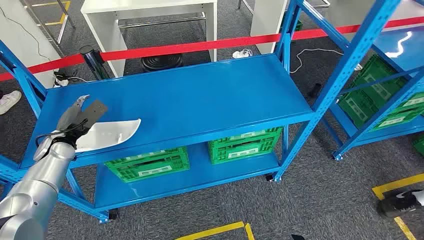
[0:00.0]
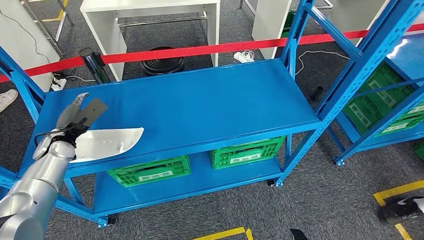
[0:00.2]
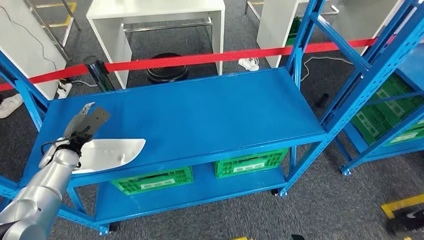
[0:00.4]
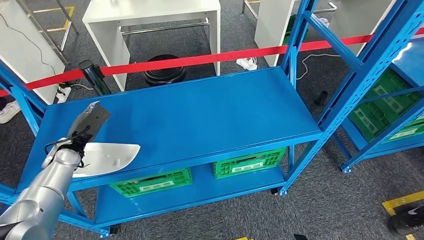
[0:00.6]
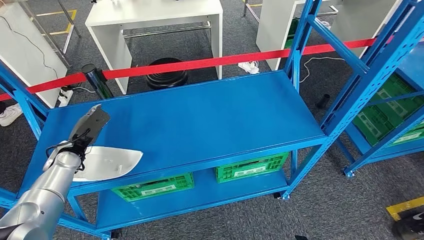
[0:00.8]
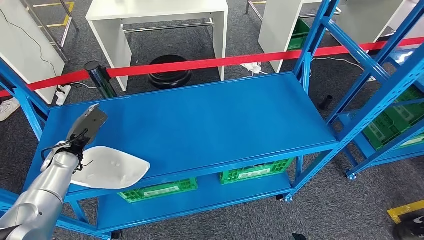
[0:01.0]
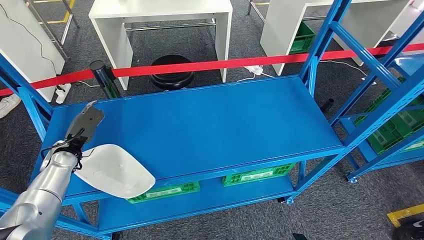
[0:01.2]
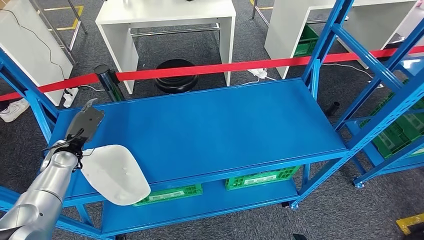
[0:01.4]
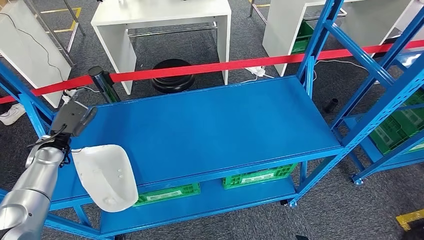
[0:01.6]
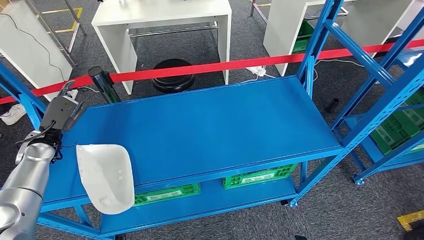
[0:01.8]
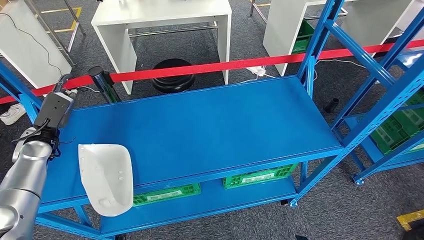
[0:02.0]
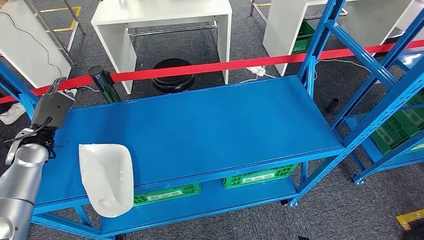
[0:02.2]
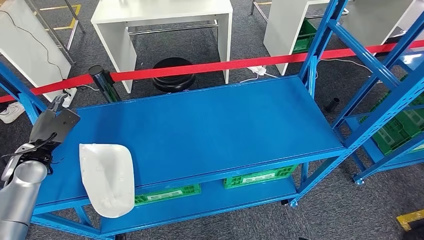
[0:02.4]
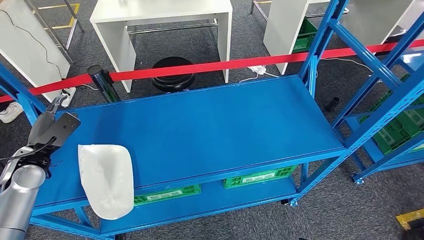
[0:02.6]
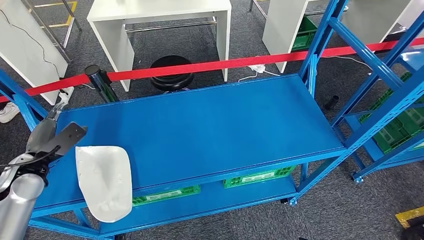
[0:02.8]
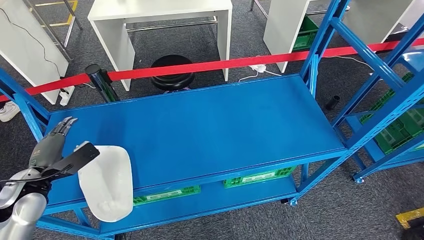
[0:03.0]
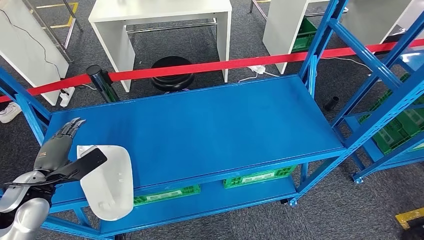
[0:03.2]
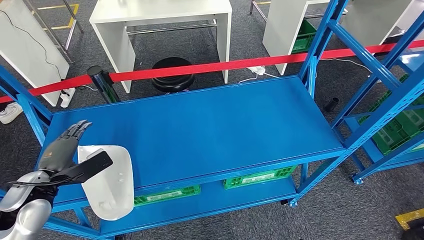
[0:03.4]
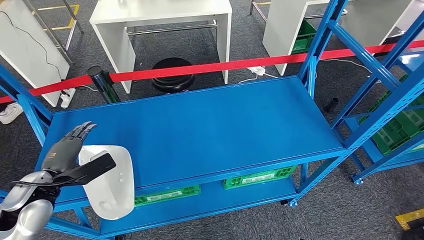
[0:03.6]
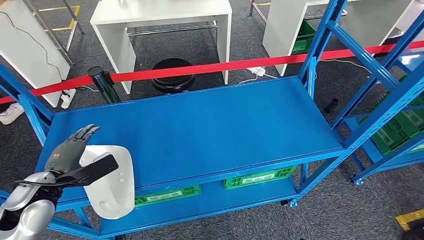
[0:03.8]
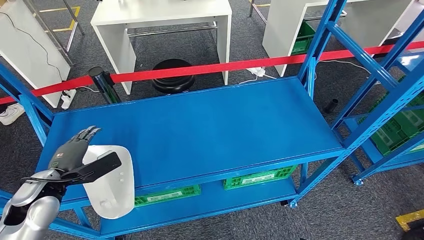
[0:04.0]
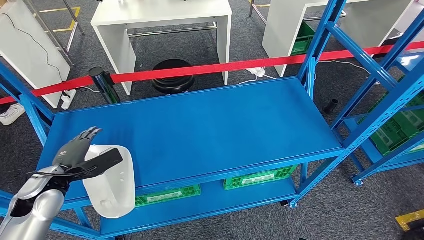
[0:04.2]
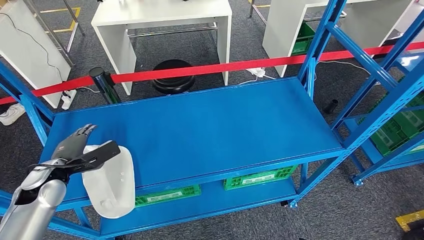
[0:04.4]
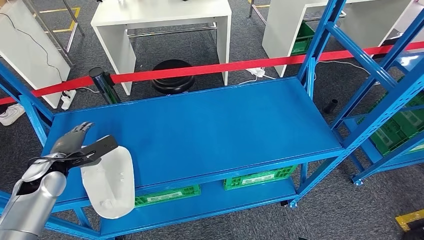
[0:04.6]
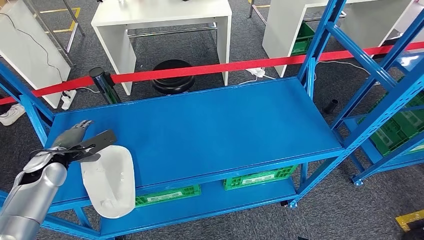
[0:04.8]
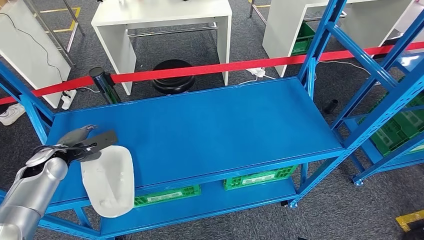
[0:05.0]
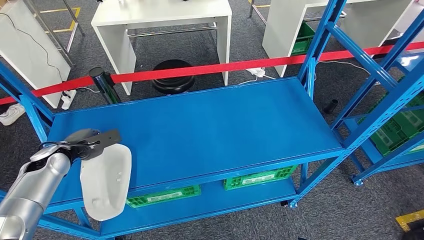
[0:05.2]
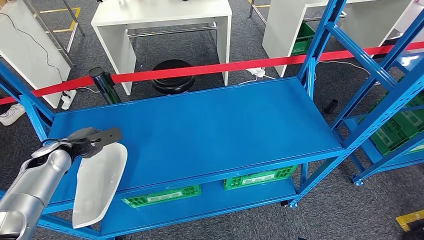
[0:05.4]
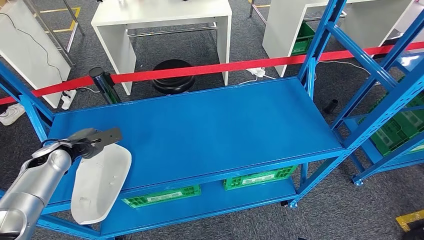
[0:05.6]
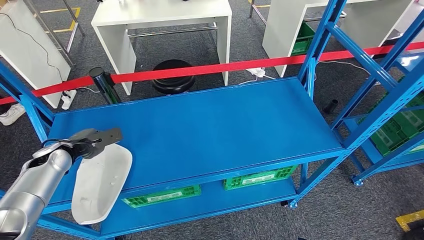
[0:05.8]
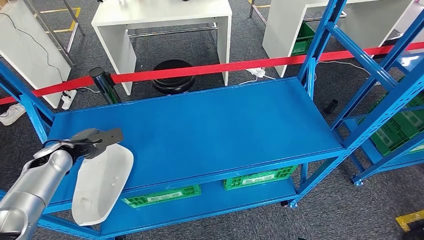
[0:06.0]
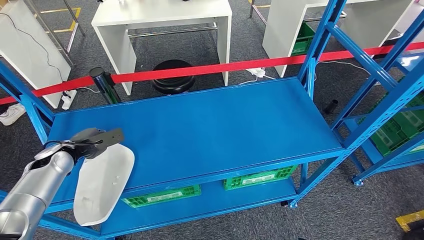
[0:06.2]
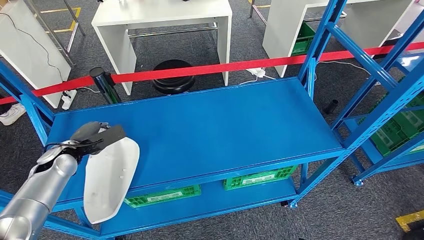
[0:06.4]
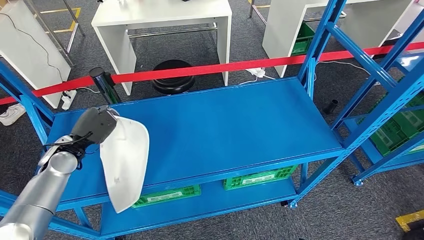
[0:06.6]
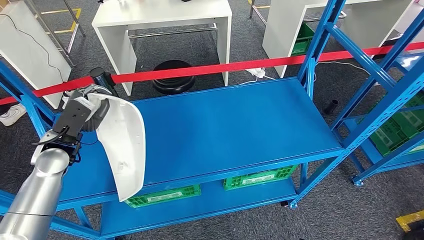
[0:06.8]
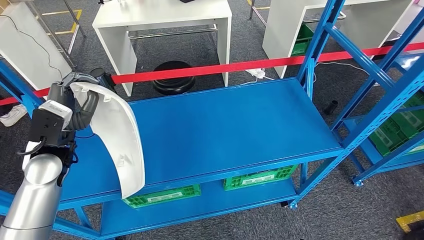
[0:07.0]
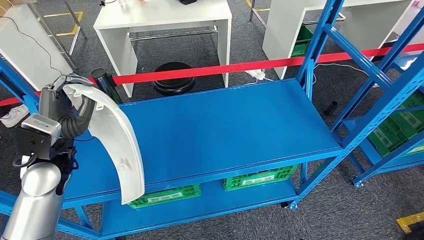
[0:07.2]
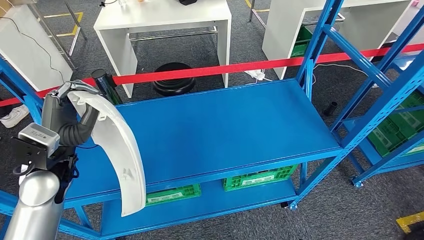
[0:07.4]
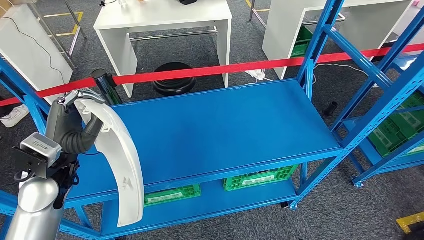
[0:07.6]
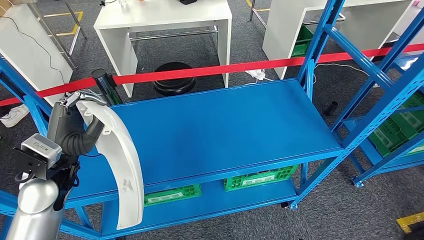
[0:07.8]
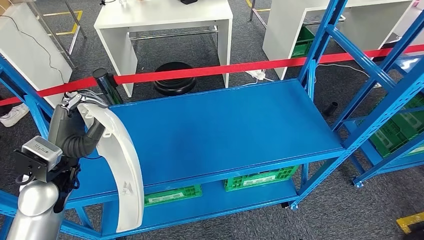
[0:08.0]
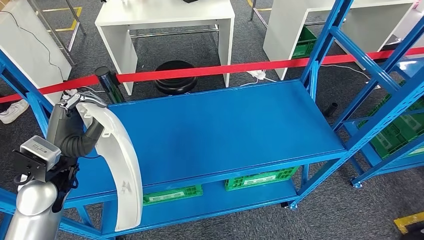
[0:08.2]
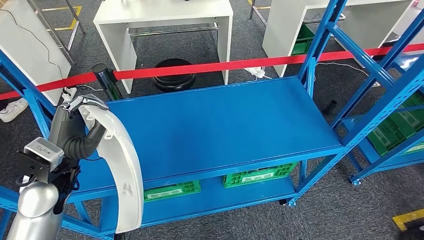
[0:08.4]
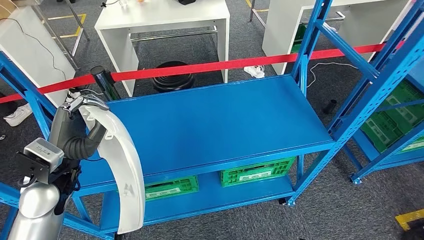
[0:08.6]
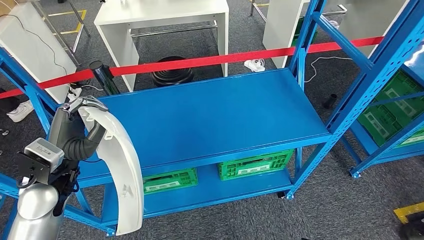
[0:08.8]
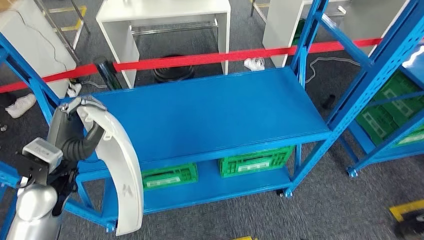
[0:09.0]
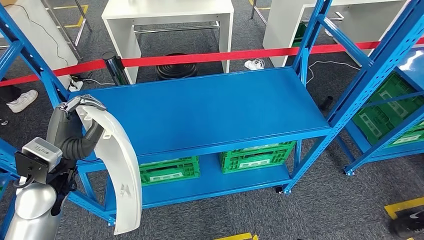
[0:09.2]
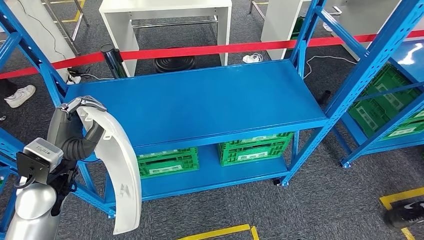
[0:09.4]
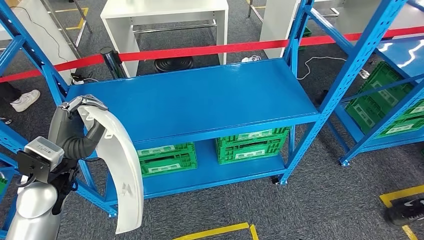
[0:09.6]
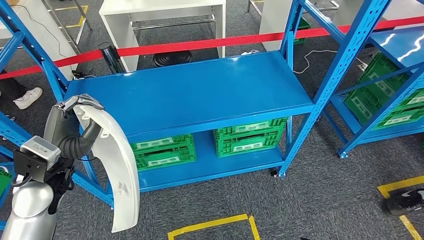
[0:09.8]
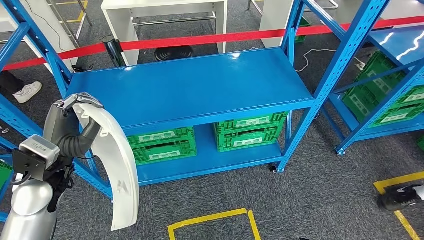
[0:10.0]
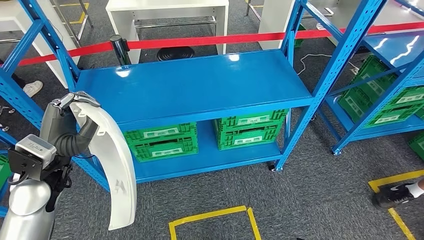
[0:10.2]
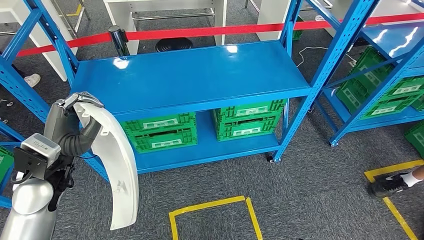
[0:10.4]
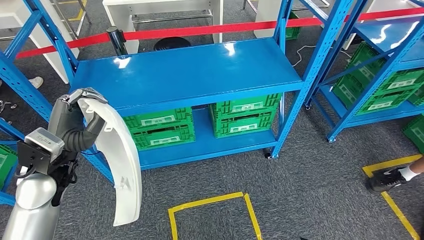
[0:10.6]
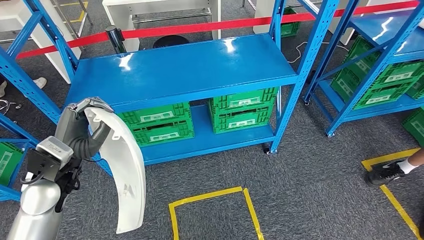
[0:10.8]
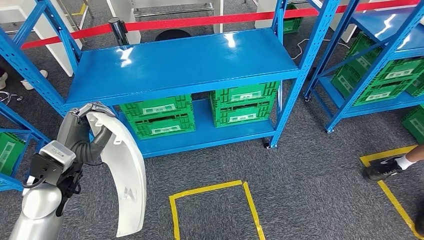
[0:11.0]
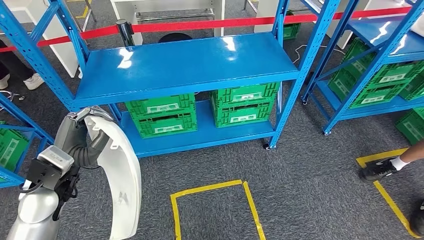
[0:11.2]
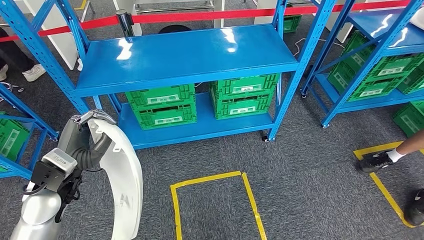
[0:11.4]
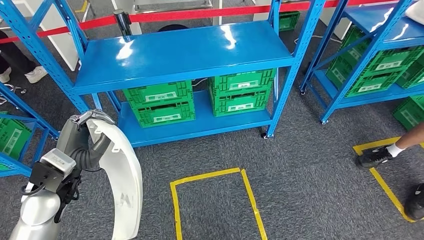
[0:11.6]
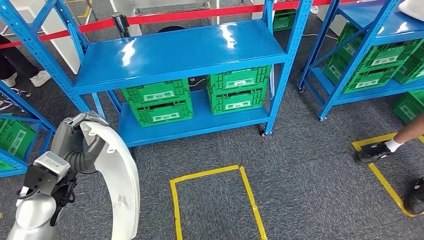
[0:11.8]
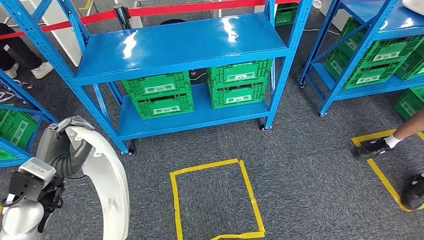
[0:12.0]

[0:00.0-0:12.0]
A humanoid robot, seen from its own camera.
Step, 0:00.0 to 0:07.6: Pick up the small component from the shelf.
0:04.4 to 0:06.0: The left hand goes some 5 cm forward.

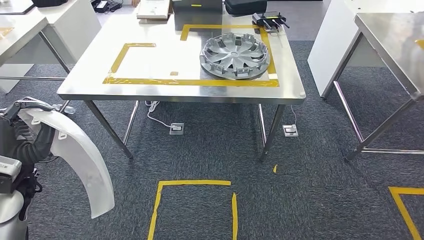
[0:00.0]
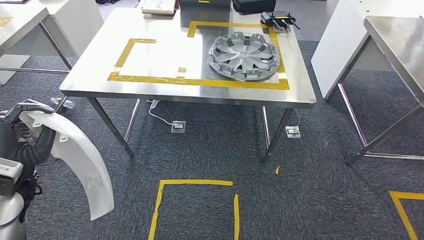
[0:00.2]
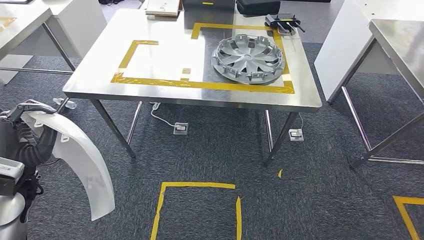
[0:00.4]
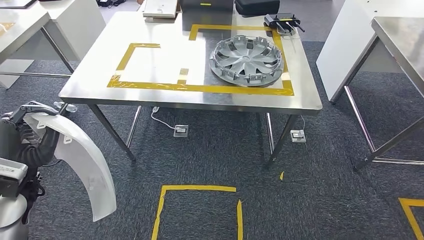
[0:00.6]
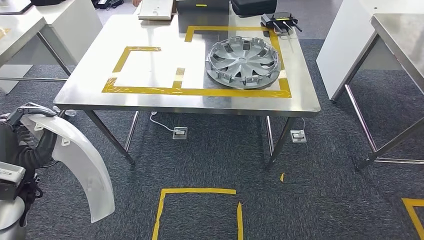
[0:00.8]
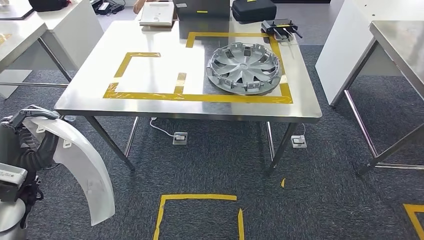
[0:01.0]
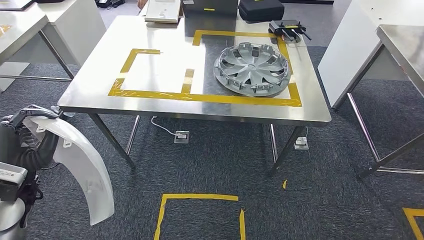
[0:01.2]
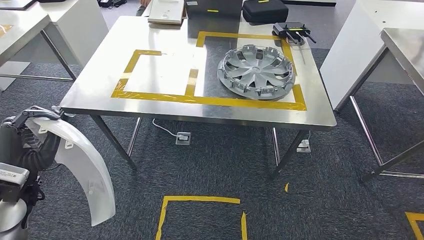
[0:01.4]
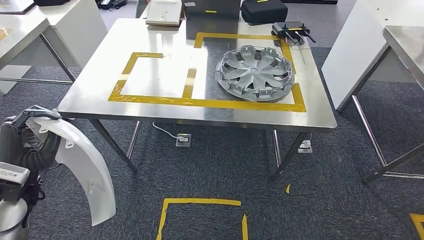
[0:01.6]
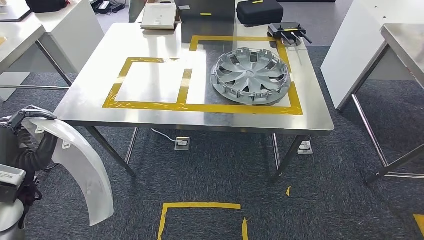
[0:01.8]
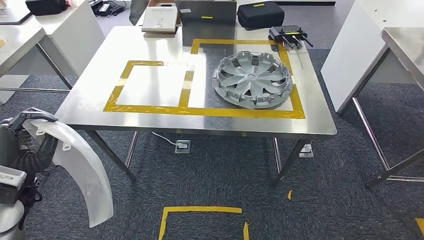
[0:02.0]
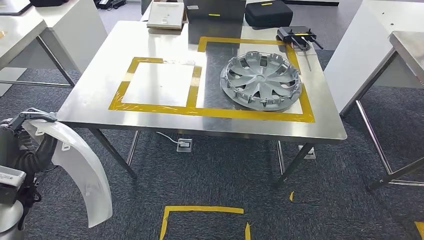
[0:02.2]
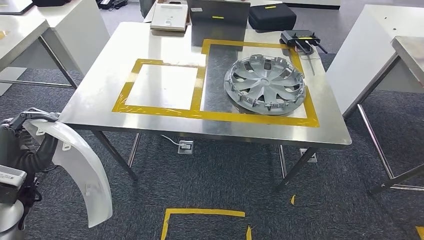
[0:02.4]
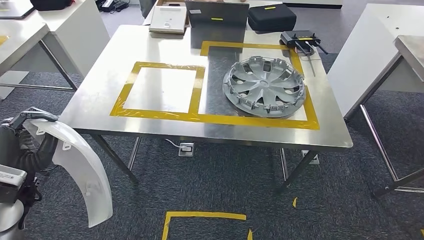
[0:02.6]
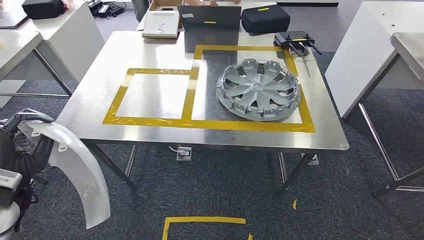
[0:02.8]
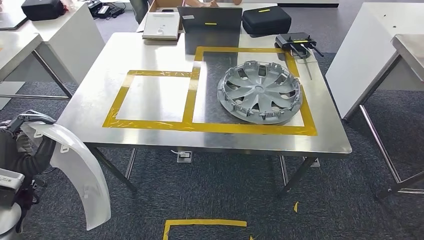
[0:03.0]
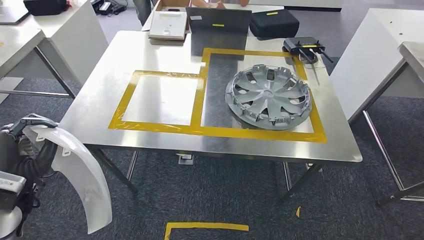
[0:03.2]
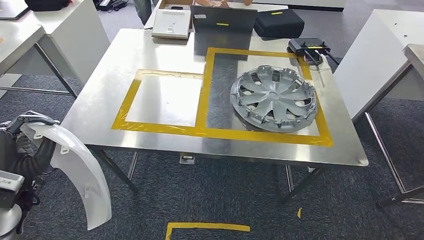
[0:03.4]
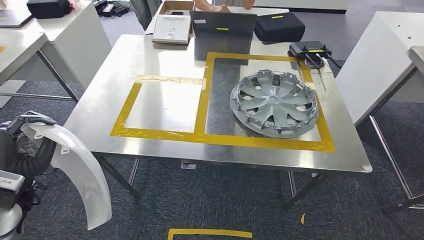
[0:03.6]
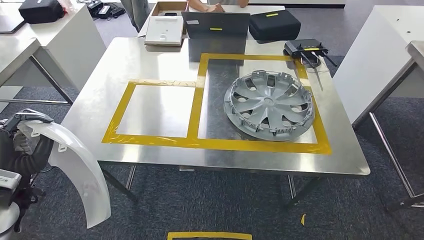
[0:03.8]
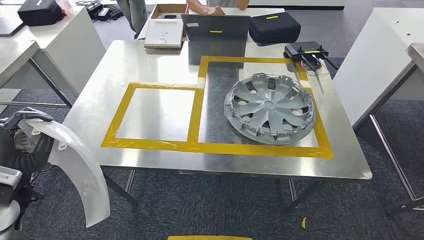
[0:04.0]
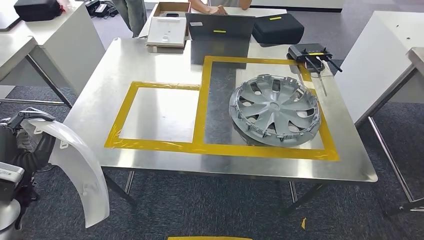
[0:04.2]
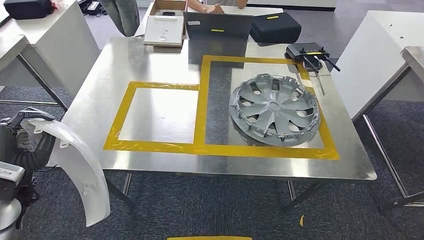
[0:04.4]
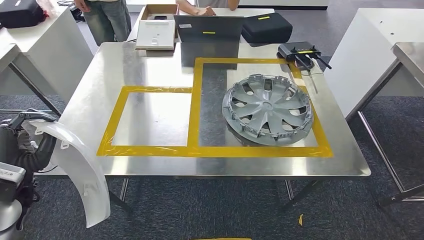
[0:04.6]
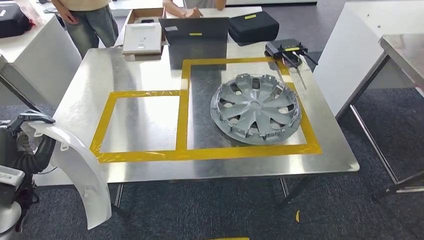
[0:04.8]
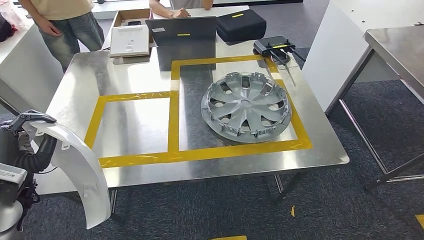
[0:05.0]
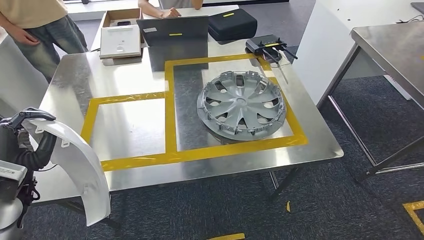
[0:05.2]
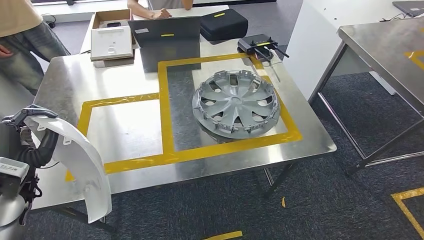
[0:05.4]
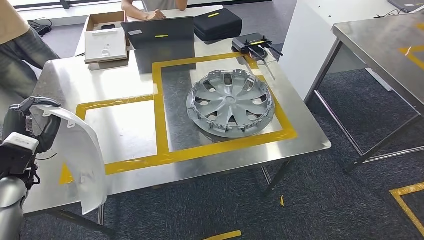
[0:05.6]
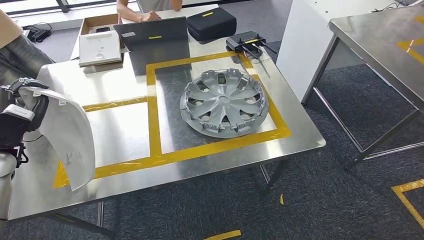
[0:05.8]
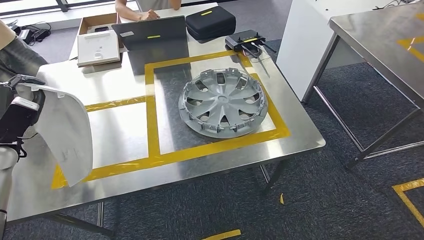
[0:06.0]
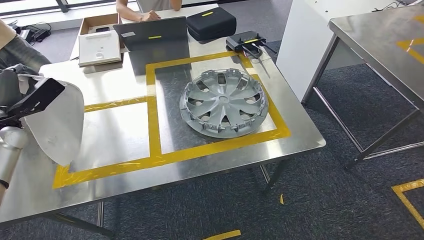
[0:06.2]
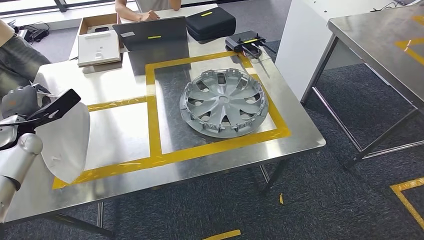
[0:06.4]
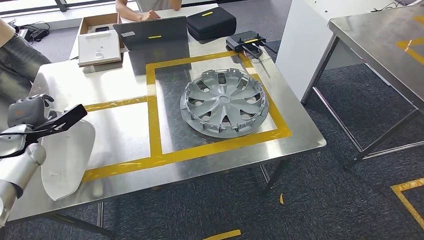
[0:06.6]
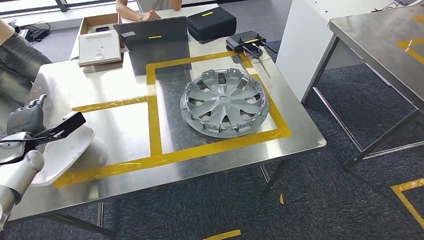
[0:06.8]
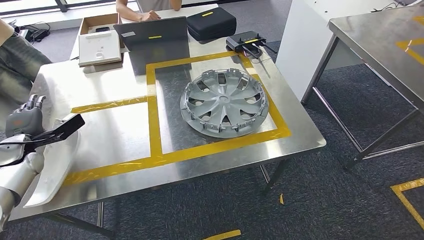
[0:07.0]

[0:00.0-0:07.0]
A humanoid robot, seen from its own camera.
Step, 0:00.0 to 0:04.8: Move the small component to the workbench.
